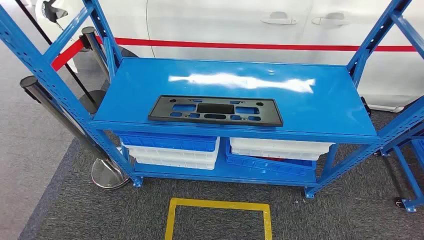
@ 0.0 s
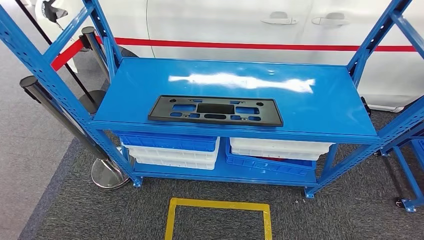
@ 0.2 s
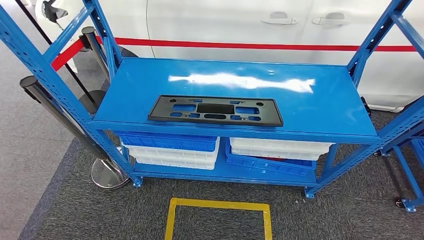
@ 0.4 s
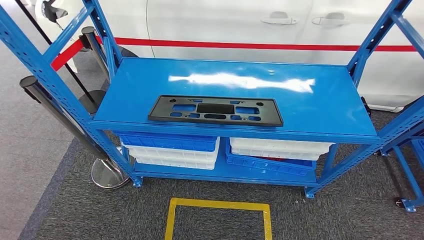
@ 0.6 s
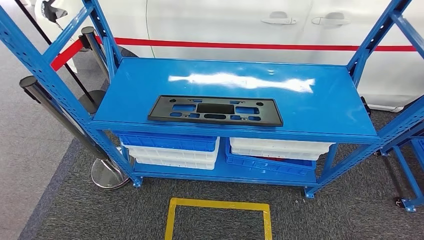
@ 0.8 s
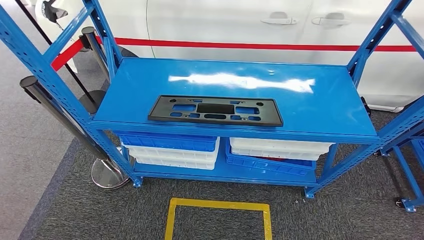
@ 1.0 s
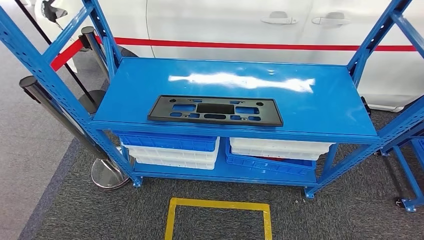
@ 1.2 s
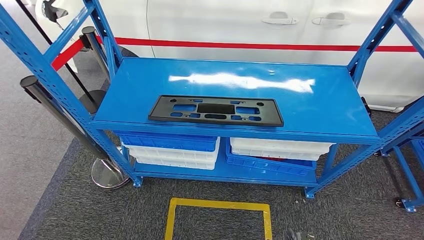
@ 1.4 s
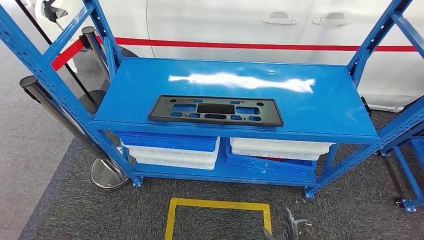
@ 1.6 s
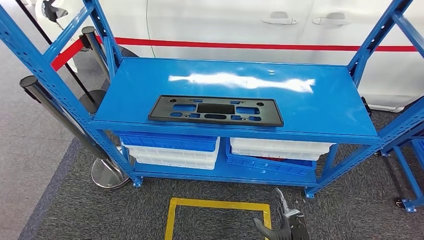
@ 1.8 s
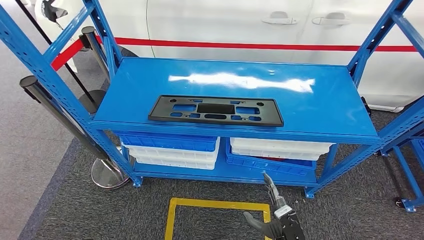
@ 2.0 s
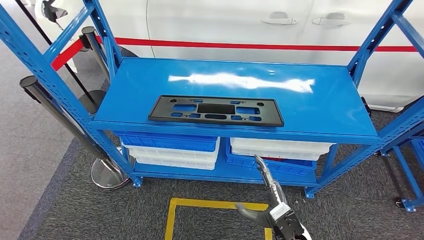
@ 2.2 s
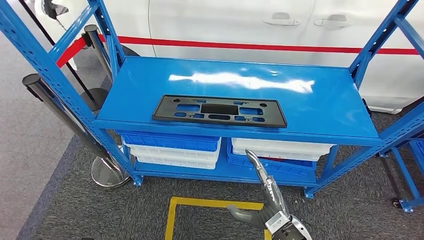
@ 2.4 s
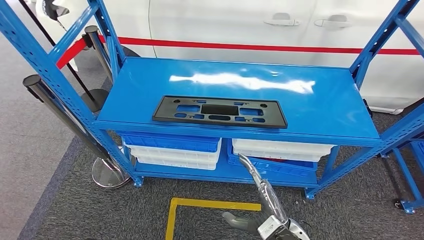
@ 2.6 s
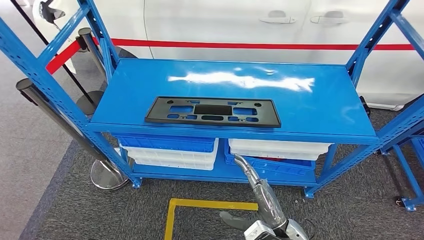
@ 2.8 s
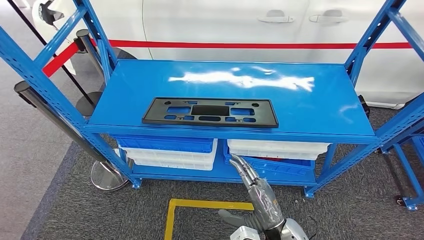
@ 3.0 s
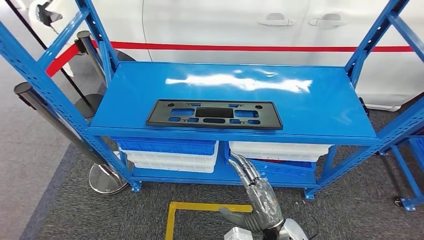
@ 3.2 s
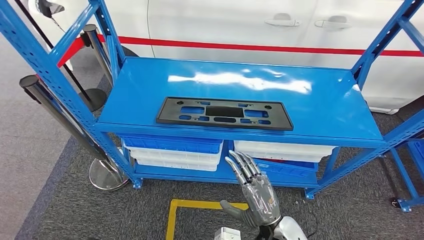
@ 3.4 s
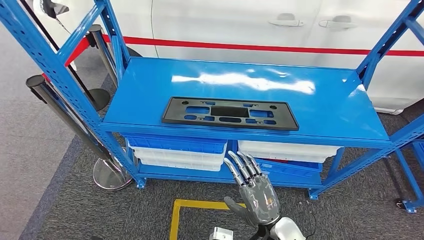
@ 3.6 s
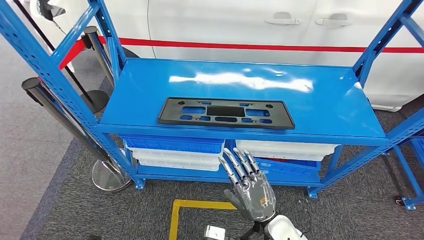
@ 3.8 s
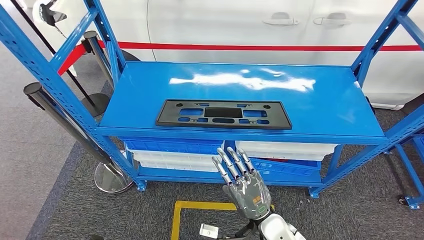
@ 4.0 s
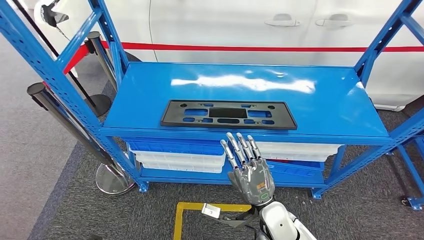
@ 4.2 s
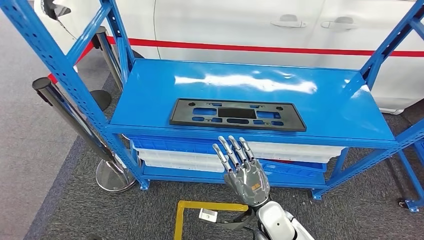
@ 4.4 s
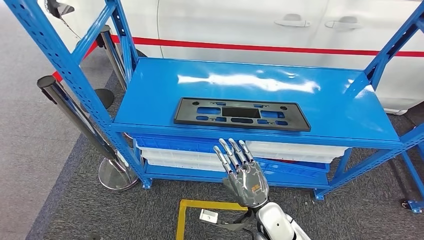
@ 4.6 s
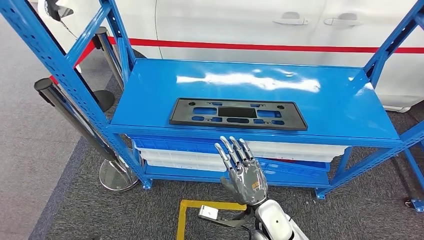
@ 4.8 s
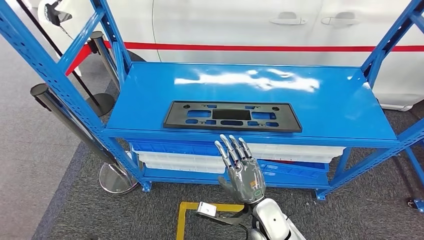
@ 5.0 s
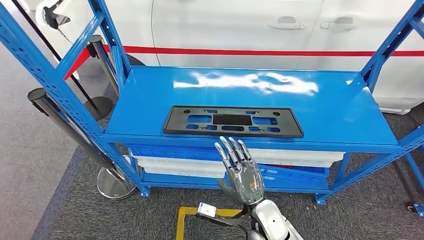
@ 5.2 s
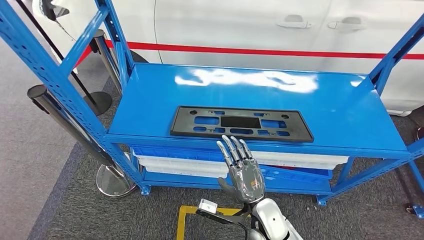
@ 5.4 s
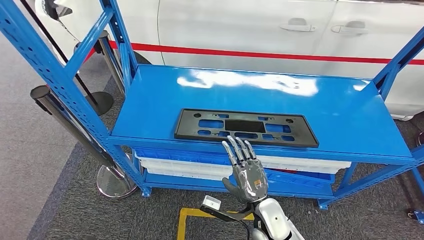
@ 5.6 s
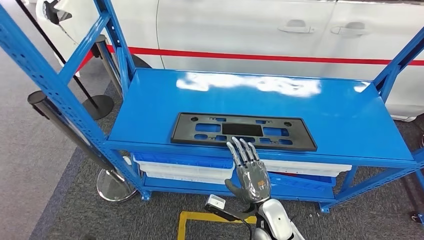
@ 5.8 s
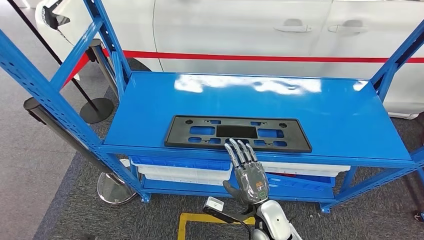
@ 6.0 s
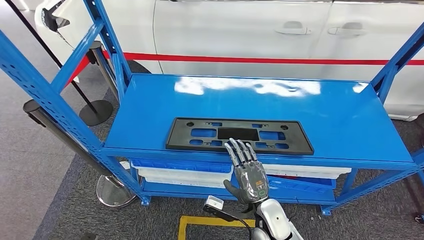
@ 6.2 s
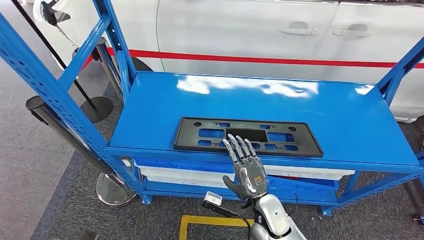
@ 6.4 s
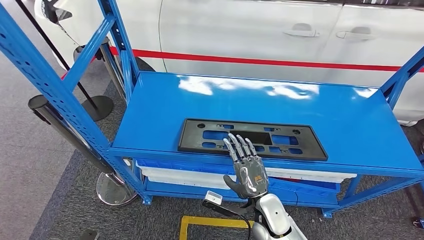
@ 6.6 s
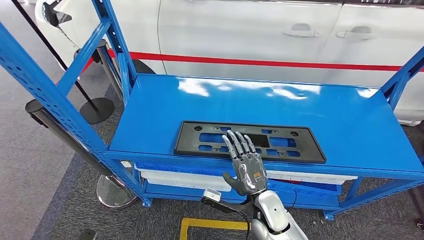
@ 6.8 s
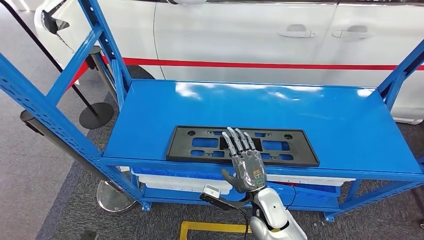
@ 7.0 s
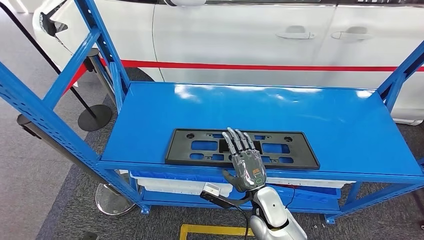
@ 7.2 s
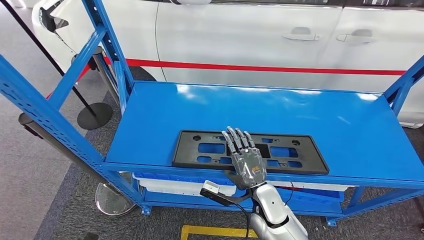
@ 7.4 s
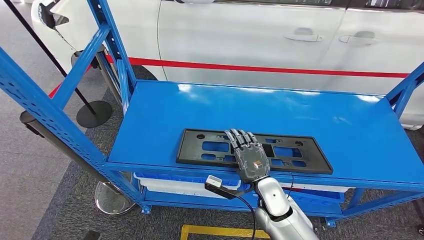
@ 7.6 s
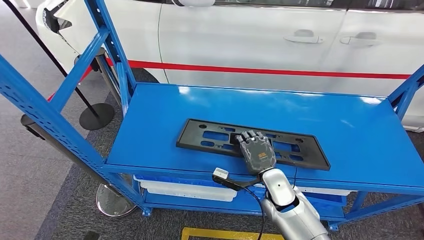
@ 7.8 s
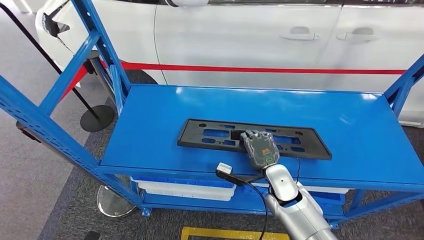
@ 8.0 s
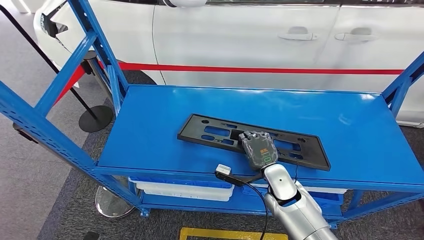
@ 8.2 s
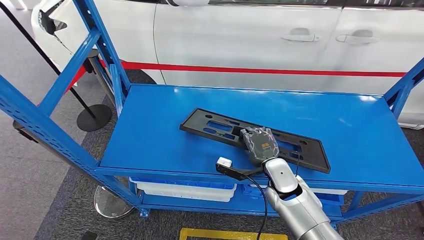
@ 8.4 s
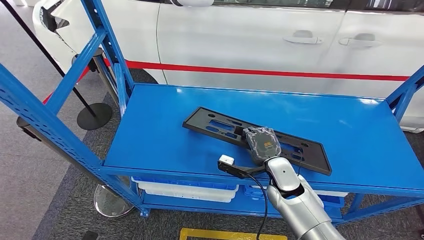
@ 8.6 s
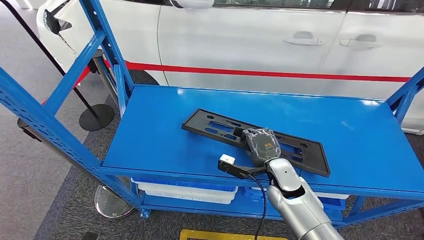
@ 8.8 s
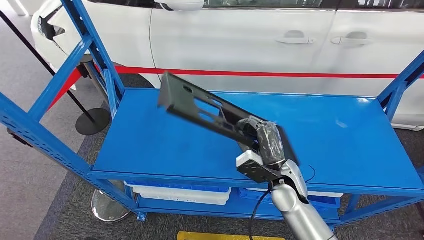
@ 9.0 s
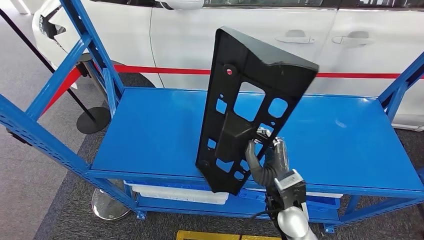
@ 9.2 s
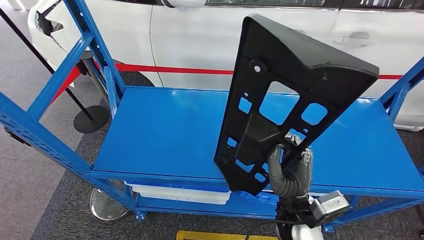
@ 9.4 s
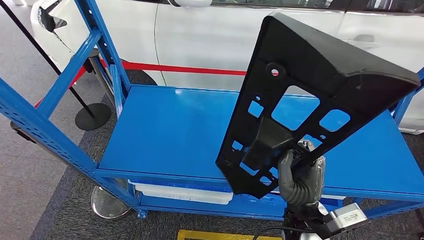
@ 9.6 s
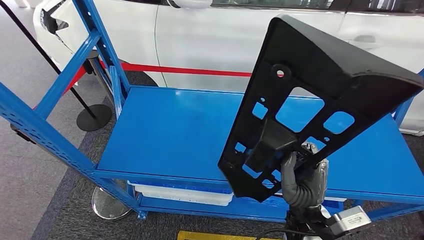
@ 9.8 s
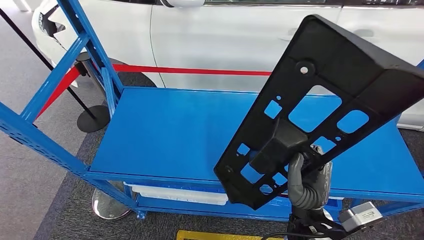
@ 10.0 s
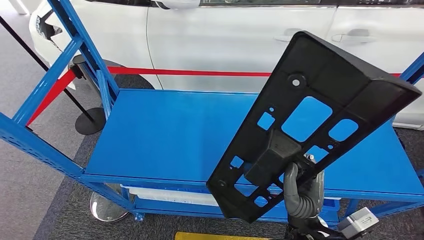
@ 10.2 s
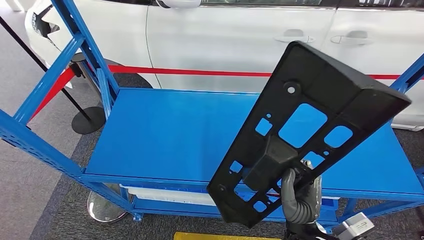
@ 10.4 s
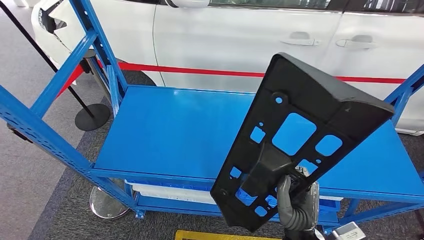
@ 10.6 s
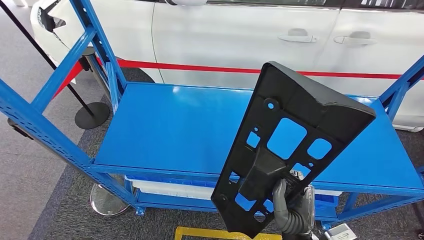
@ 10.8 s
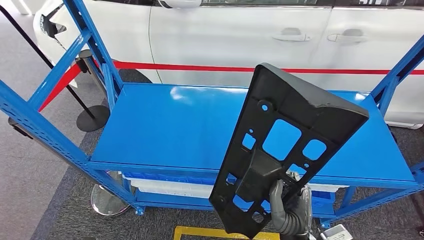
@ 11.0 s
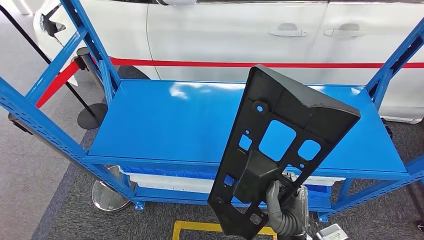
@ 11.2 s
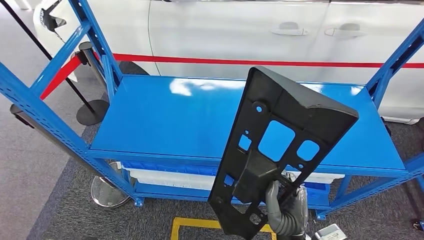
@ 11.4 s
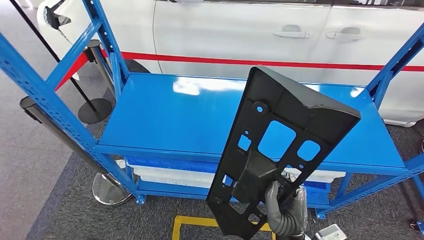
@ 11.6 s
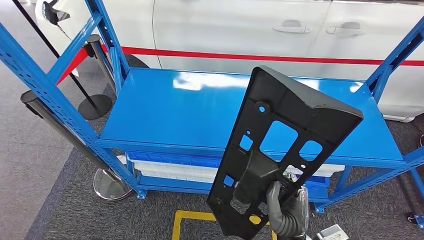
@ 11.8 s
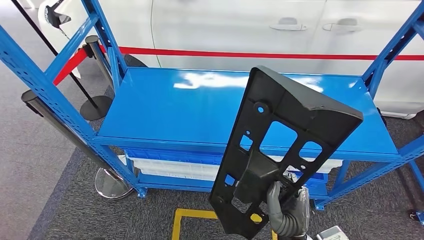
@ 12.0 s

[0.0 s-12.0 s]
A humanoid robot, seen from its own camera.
Step, 0.0 to 10.4 s: Pick up the large material from the shelf.

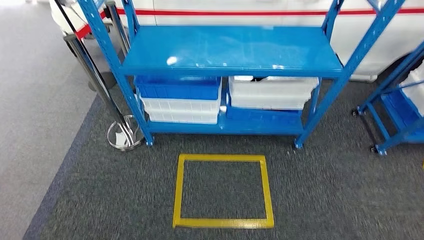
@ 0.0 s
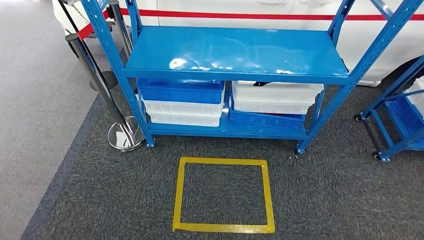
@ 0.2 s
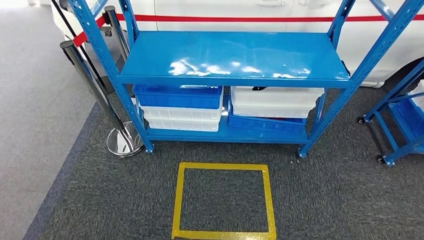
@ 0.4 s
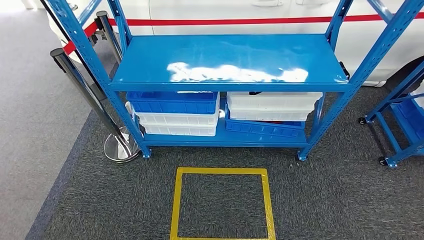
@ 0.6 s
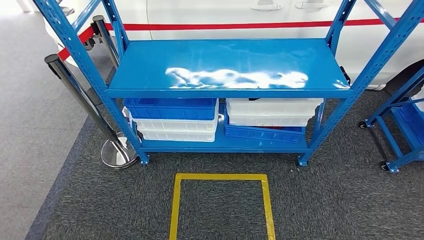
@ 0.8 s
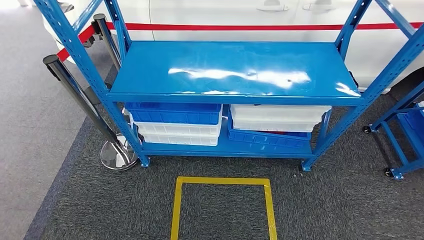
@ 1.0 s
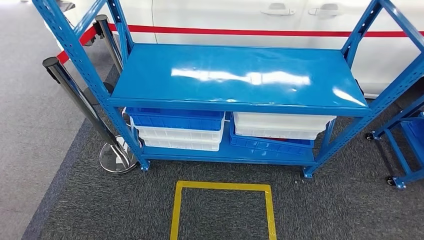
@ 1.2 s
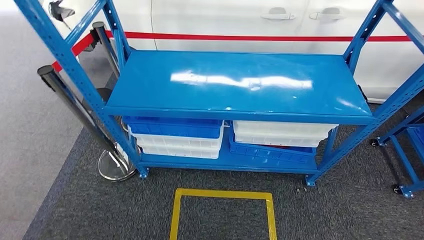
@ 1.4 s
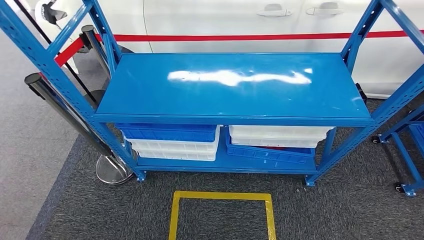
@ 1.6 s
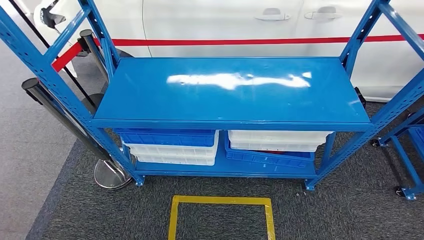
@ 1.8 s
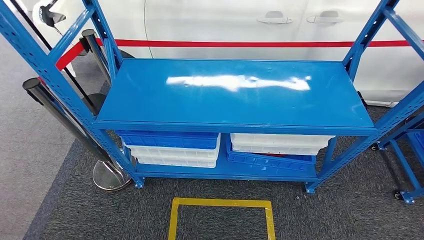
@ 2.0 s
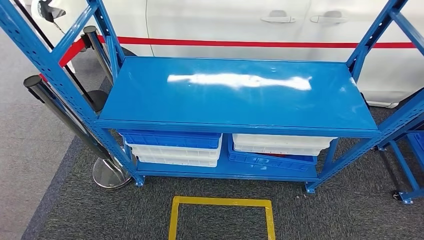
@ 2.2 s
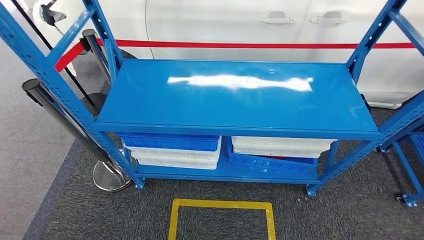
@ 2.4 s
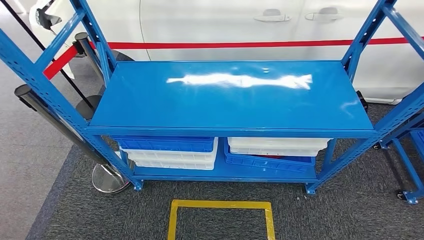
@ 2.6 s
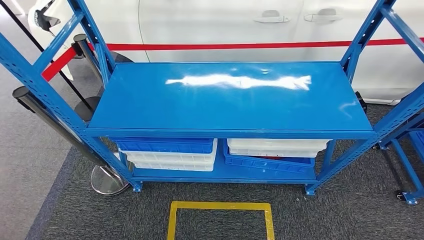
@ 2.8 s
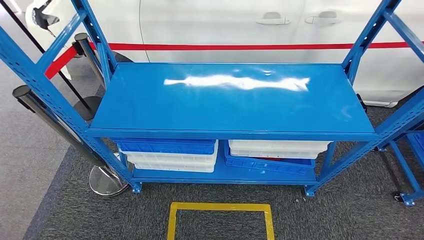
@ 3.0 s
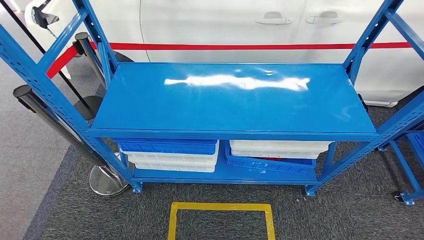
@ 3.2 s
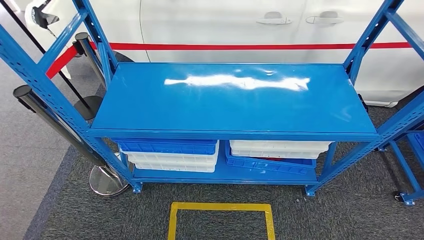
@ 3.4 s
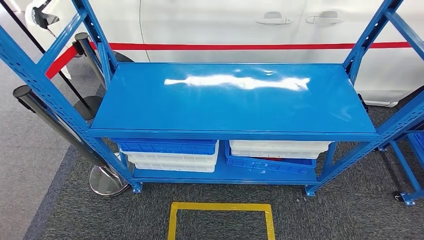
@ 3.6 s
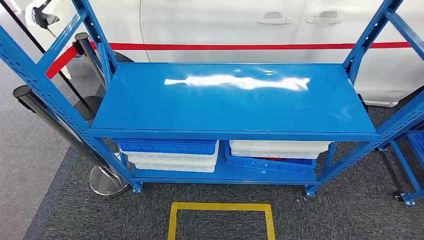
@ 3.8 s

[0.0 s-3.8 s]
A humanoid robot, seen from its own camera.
Step, 0.0 to 3.6 s: Move to the initial position of the shelf.
2.6 to 3.8 s: The two hands keep their place.
